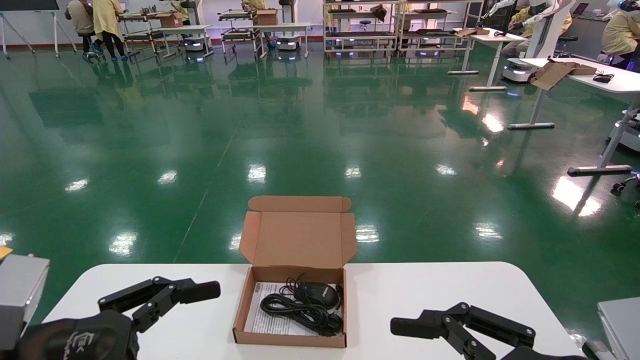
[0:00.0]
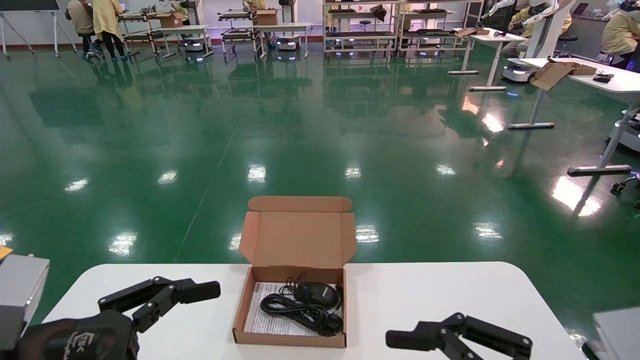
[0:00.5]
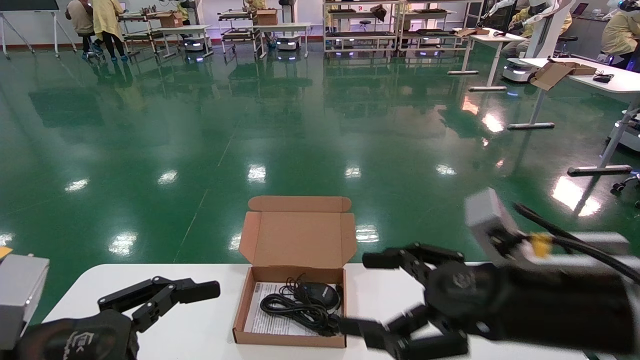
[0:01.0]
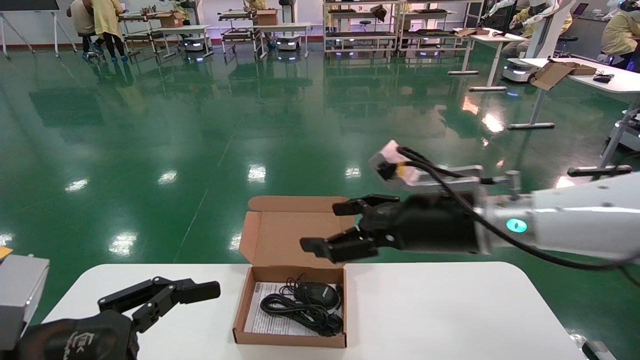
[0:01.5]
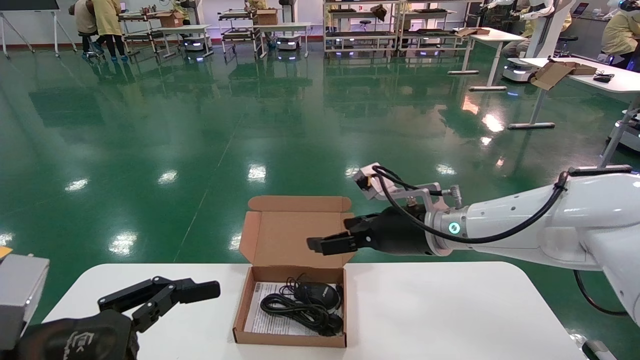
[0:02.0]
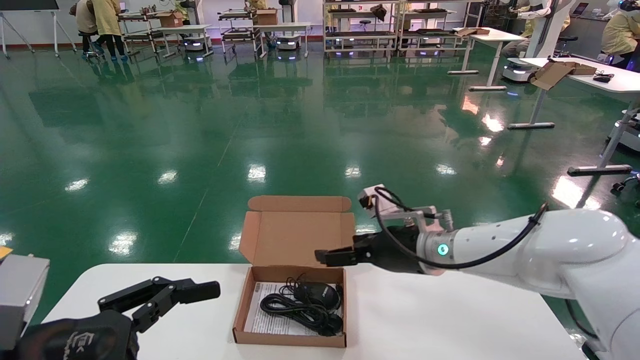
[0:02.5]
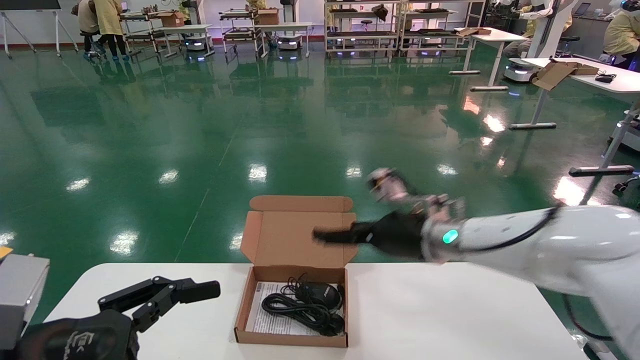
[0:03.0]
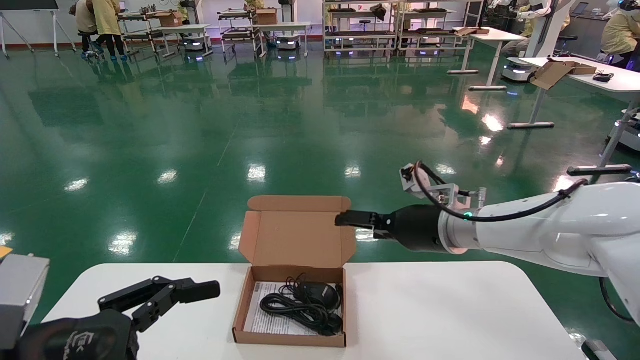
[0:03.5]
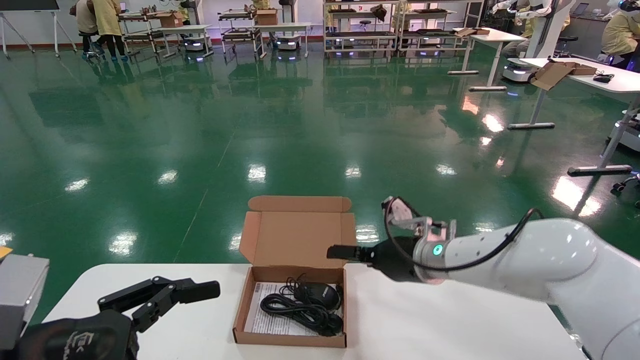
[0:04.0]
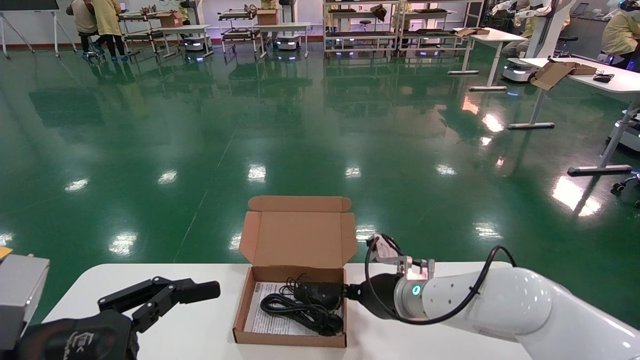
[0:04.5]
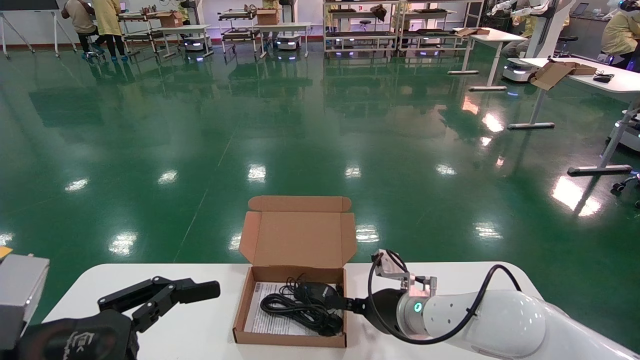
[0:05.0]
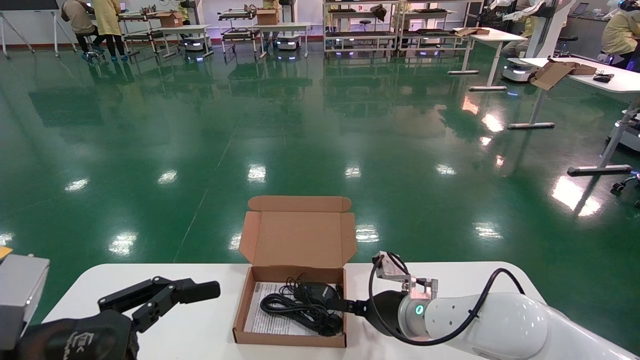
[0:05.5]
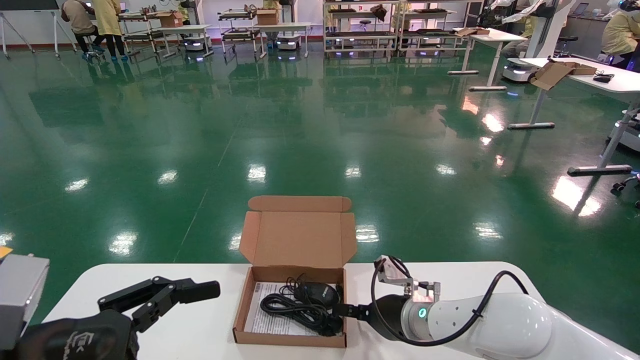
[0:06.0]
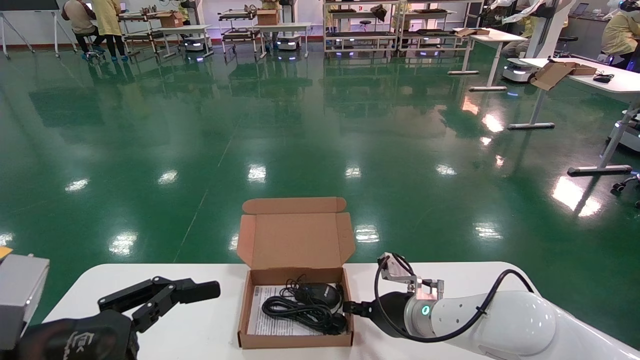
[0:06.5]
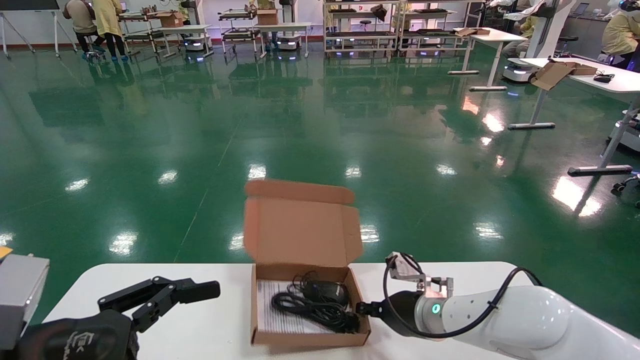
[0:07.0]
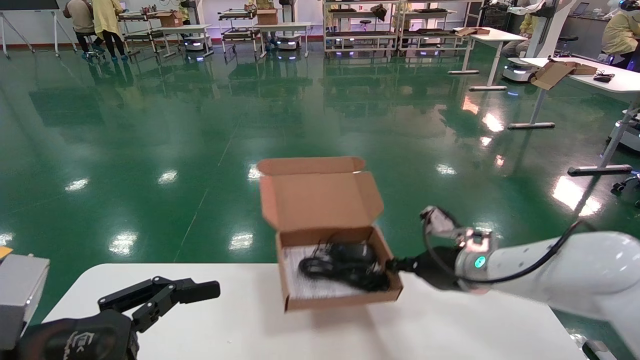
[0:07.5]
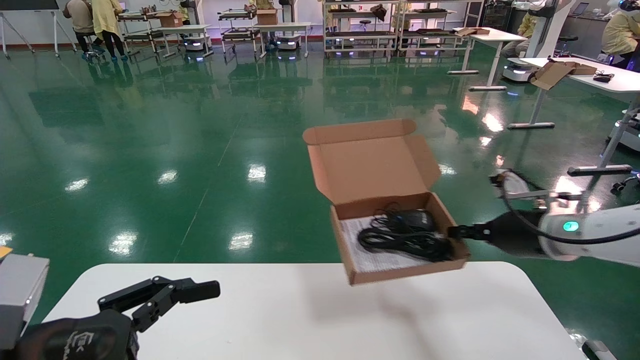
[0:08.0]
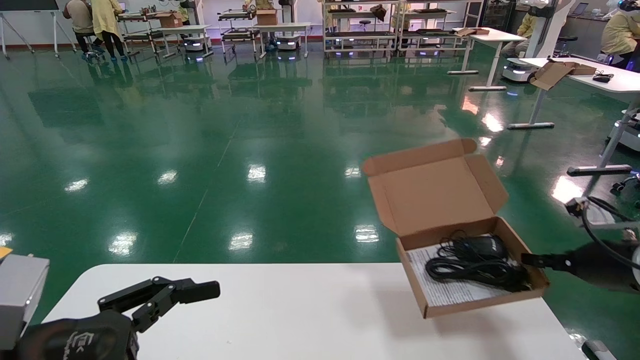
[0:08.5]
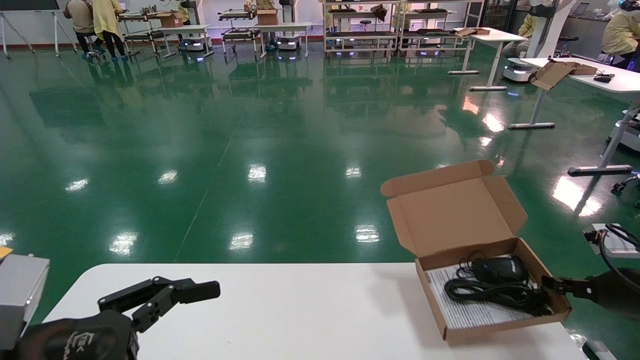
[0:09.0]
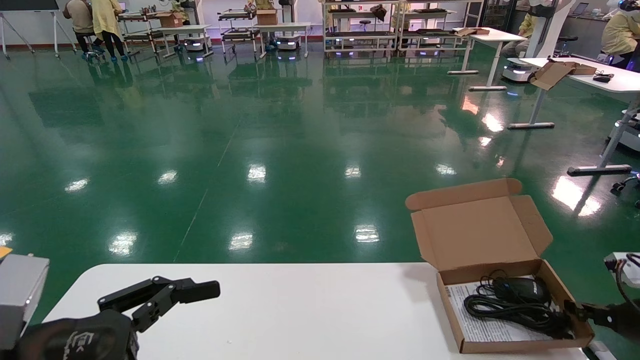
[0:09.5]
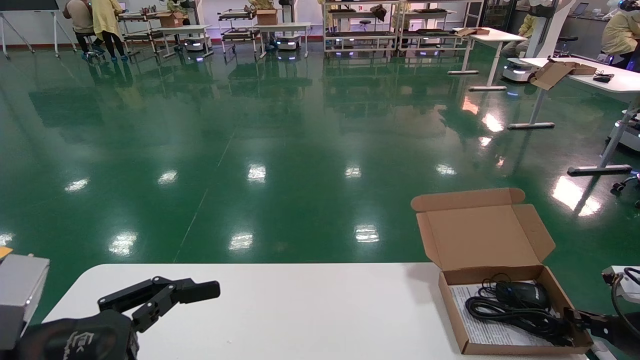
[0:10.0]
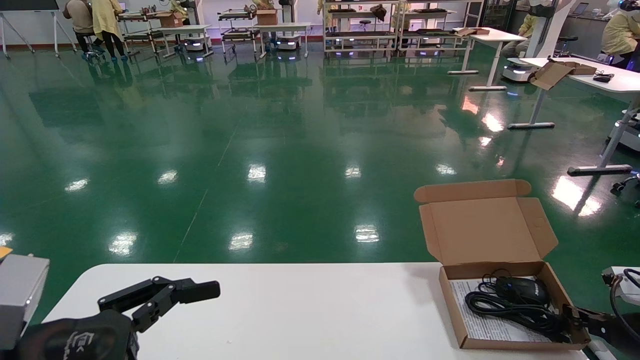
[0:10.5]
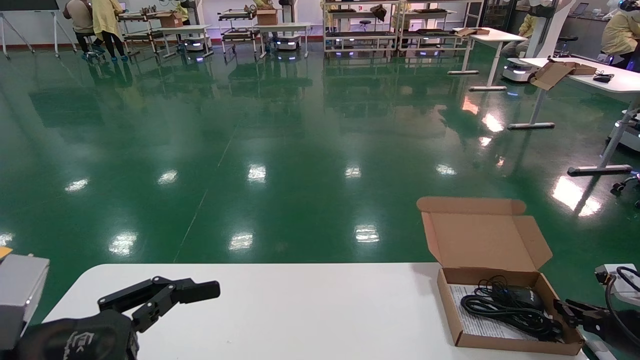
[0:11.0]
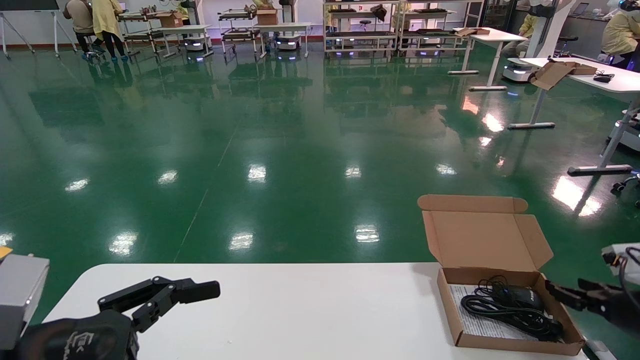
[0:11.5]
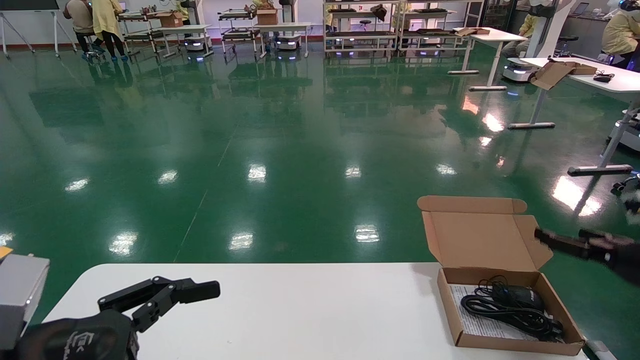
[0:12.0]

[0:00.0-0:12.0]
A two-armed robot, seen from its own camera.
Task of the whole recording: move the position of the storage box with accessories on the table.
Step, 0:01.0 to 0:07.0: Grab and pick up the open mouse box from the accessory packaging area.
Step, 0:07.5 to 0:11.0: Place the open mouse box onto the operation table.
0:00.0 to 0:02.0: The right gripper moves forward and to the left, roughly 30 cm.
0:02.0 to 0:04.0: The right gripper goes roughly 5 cm downward.
0:04.0 to 0:06.0: The right gripper moves downward, some 10 cm.
0:06.0 to 0:08.0: The right gripper goes about 25 cm to the right and upward, and closes up.
0:08.0 to 0:10.0: The right gripper goes roughly 20 cm to the right and downward.
0:10.0 to 0:12.0: The right gripper shifts roughly 10 cm upward, and opens.

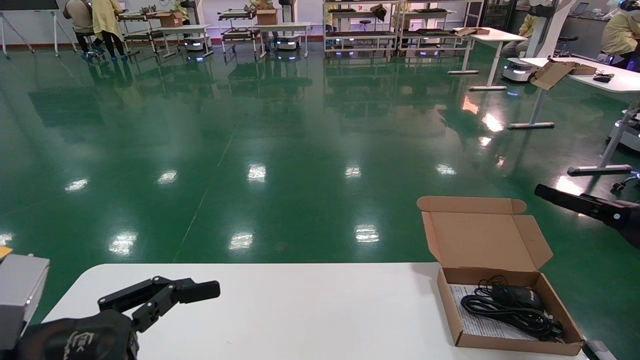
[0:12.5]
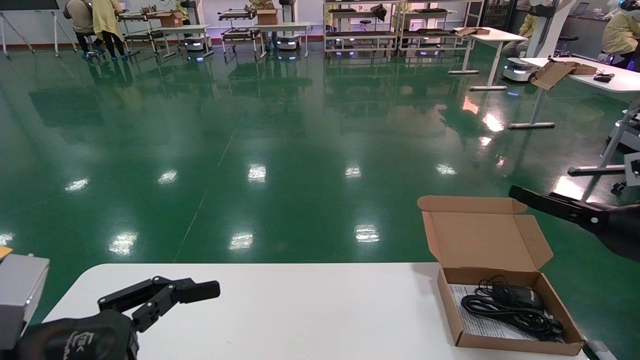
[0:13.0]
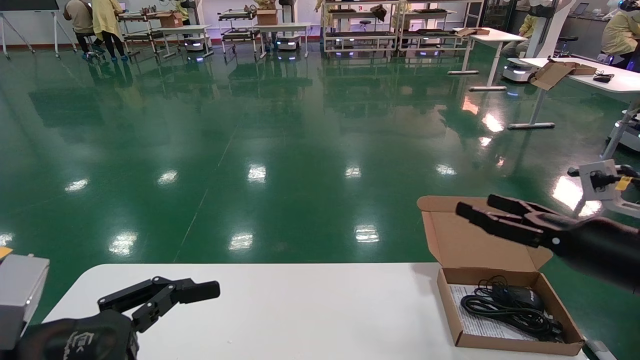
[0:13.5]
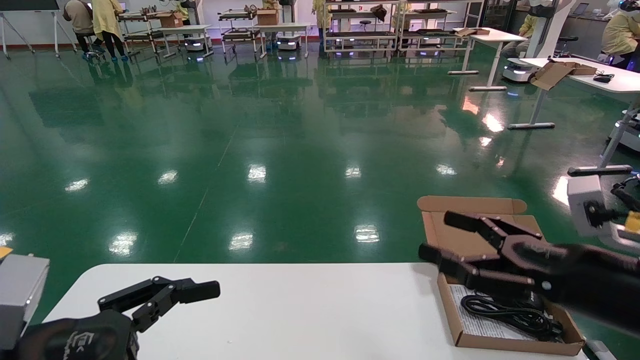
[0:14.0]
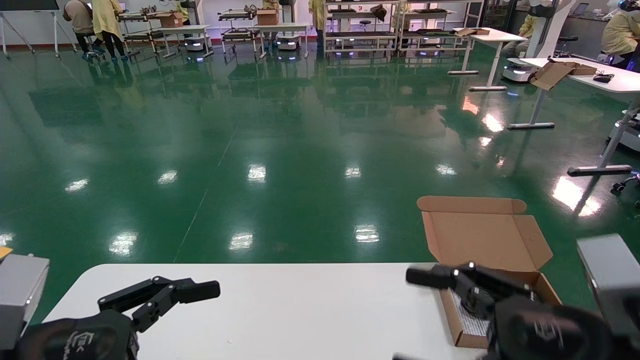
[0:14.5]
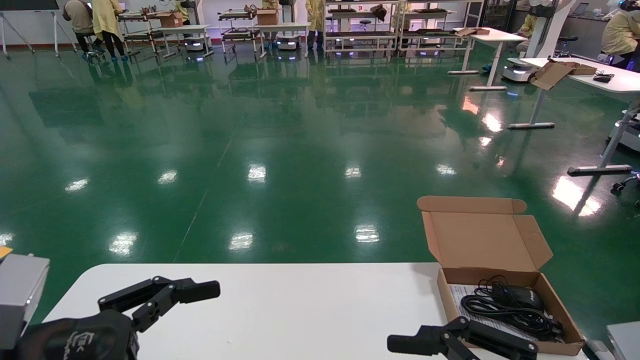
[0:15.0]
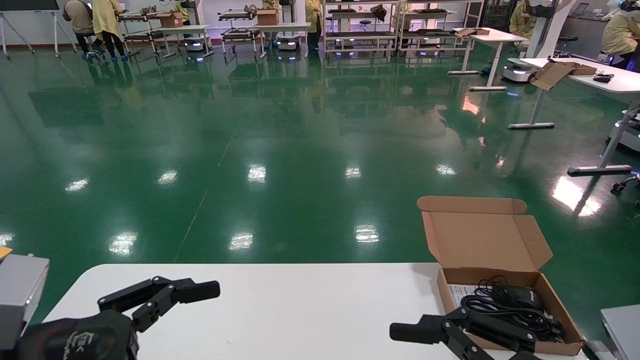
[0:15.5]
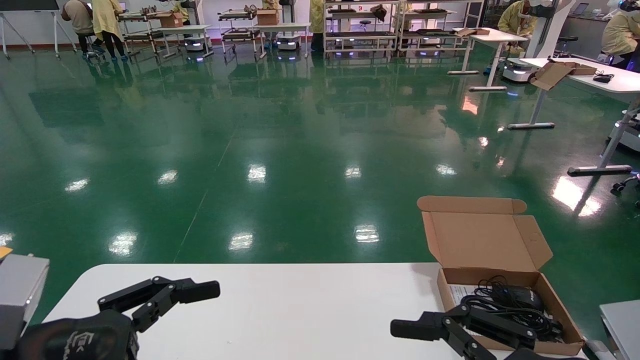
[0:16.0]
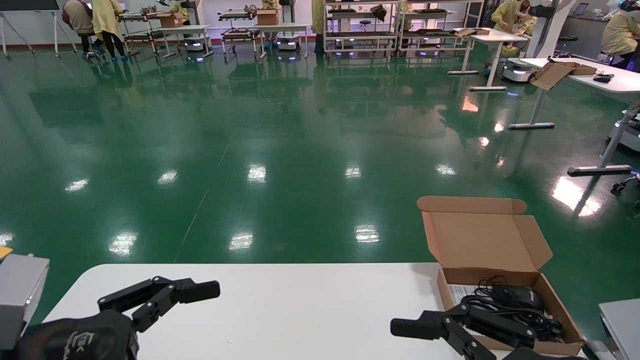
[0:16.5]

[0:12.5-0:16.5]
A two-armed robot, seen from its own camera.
Task of the whole recording: move the position of the storage box with accessories on the table.
0:12.5 to 0:14.5: The right gripper shifts some 25 cm to the left and backward.
0:14.5 to 0:16.5: There are only small adjustments of the grippers.
